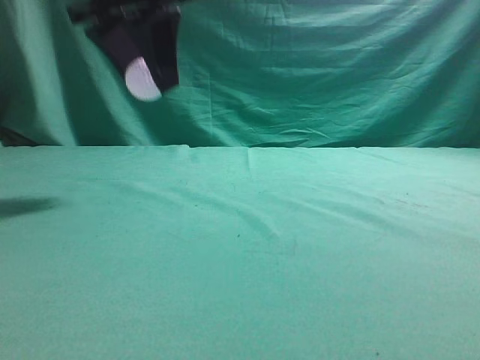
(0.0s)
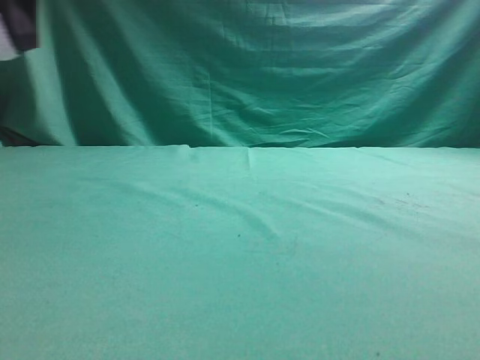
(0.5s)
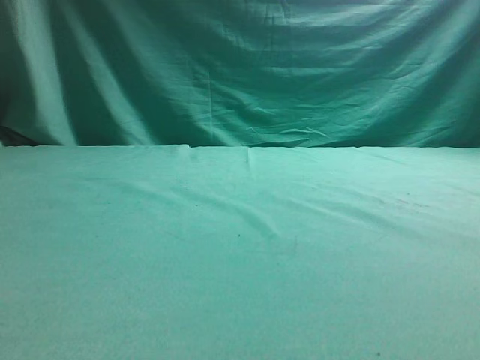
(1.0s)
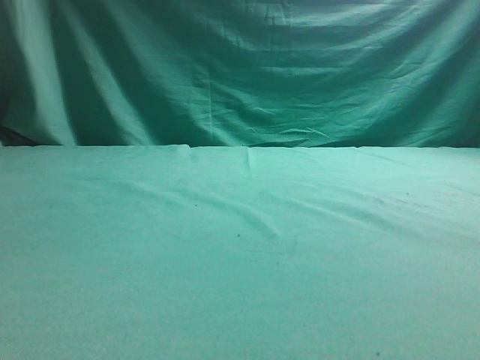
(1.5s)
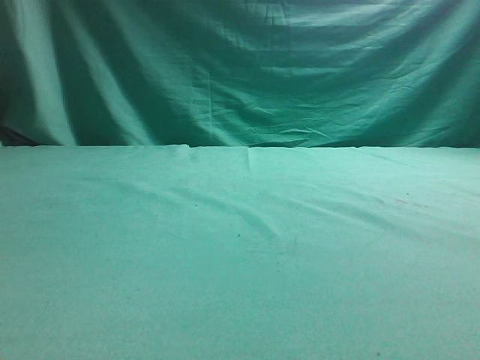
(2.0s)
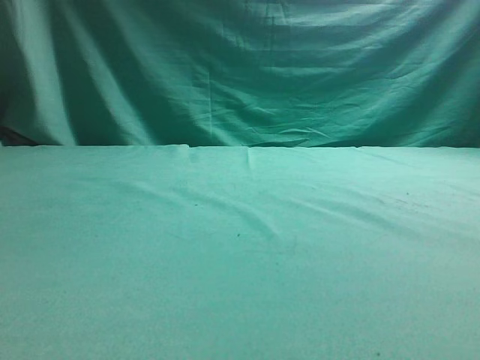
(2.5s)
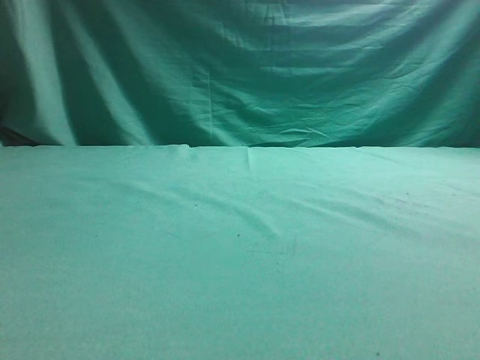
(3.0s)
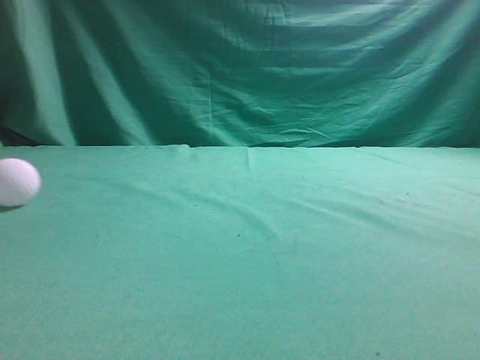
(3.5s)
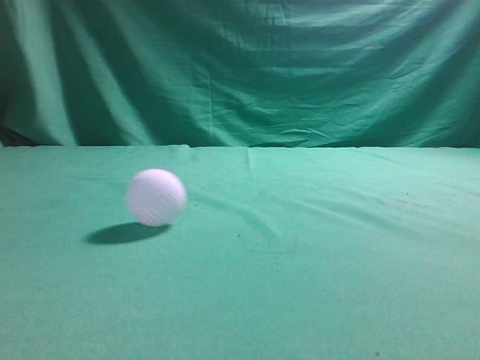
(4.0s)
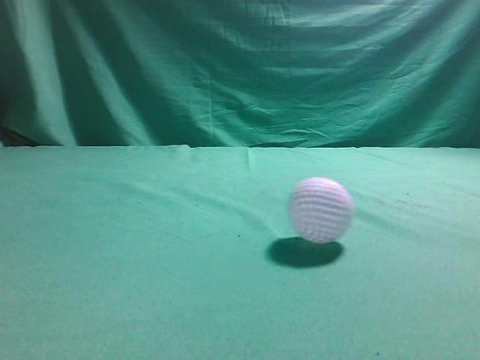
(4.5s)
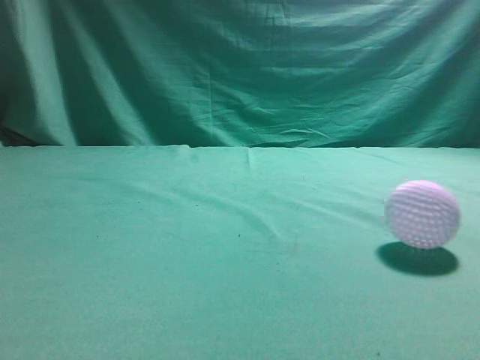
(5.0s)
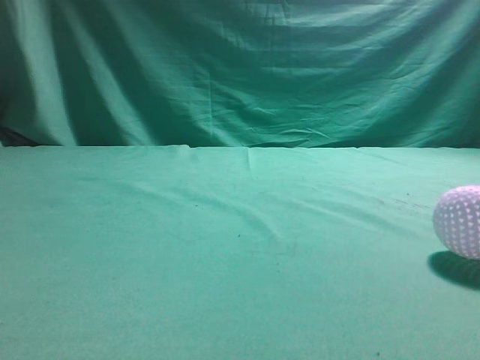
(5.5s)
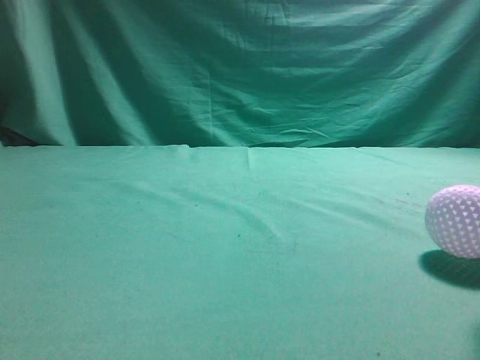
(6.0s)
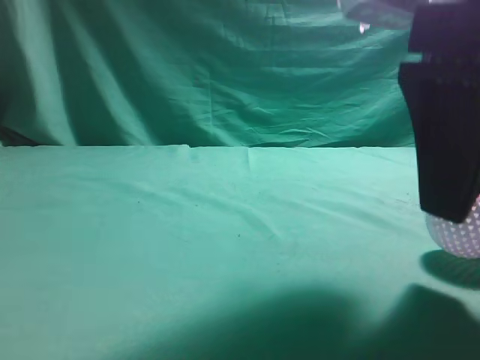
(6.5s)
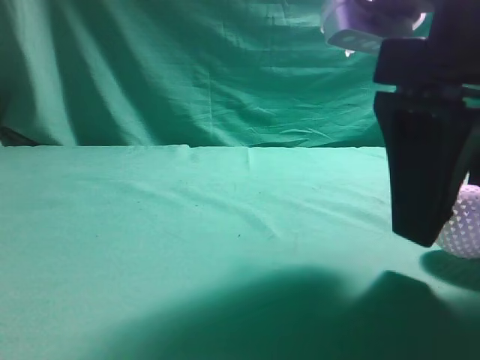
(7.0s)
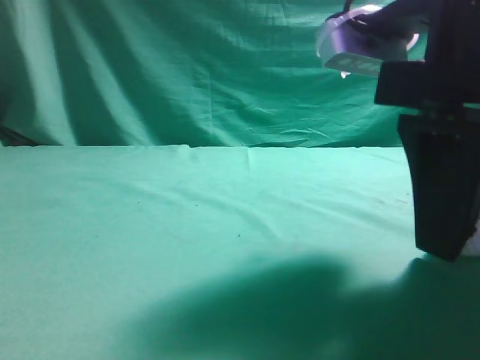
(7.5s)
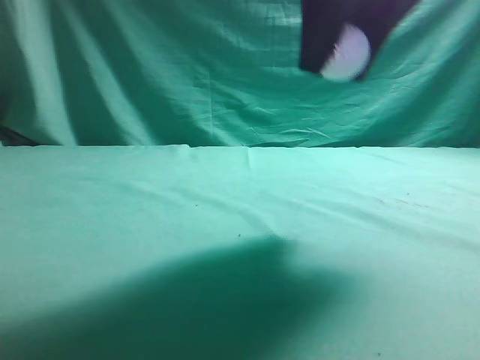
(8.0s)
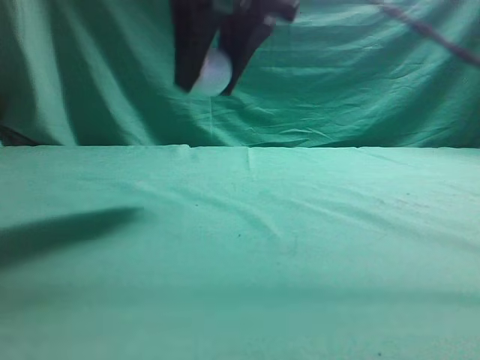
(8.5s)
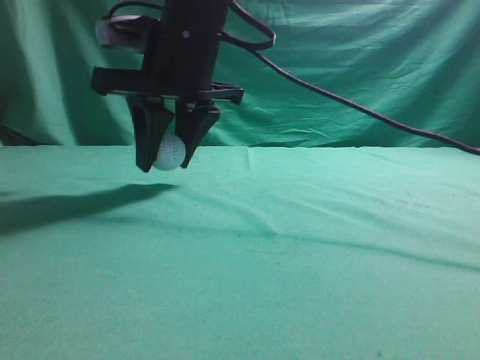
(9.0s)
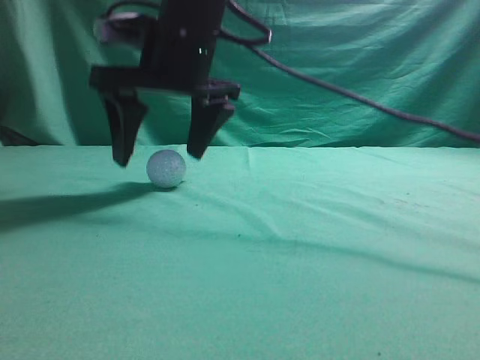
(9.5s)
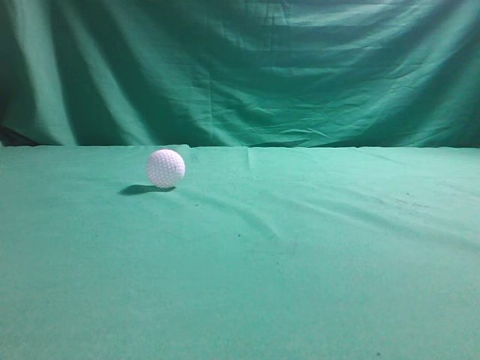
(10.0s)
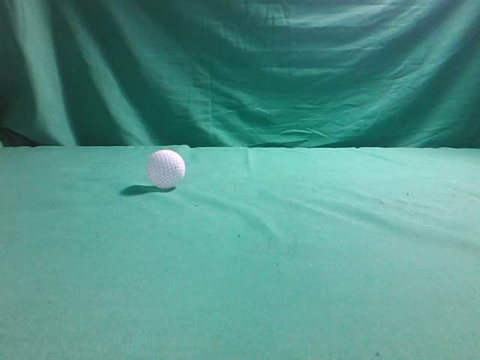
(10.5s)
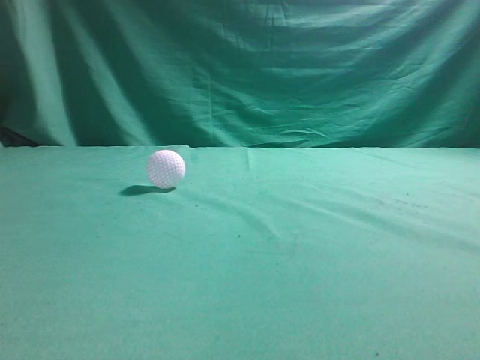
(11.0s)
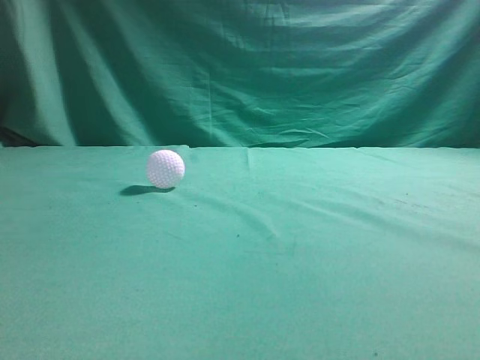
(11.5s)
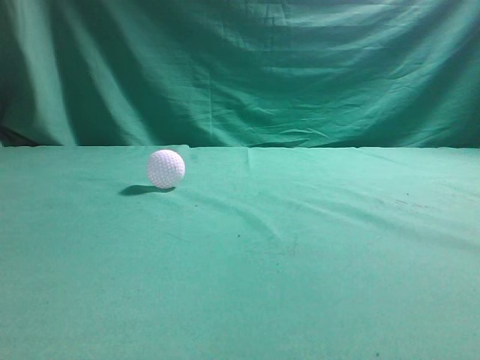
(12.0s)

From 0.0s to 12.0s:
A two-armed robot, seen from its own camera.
Task of the whole recording: pick up the ball and place it on the plate, then pick up the ball from the plate and put it in the center of the table.
Step, from 0.0s to 2.5s: Place the sphere on the white object.
Step, from 3.5s to 7.5s: Grab the rolling spherical object.
Step, from 8.0s to 9.5s: Put the picked-up object on the table.
From 0.0s to 2.0s: The left gripper goes roughly 20 cm to the left. Meanwhile the right gripper moves upward, some 10 cm.
From 2.0s to 4.0s: The left gripper travels upward and to the right by about 20 cm, and closes.
From 4.0s to 6.0s: The right gripper heads to the left, covering some 10 cm. Meanwhile the left gripper is displaced backward by some 25 cm.
From 6.0s to 8.0s: The right gripper is displaced forward and to the left by approximately 10 cm, and opens, then closes again.
From 8.0s to 10.0s: The right gripper goes about 15 cm to the left, upward and forward, and closes.
